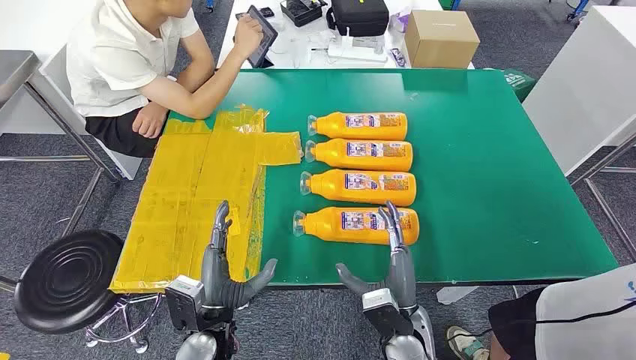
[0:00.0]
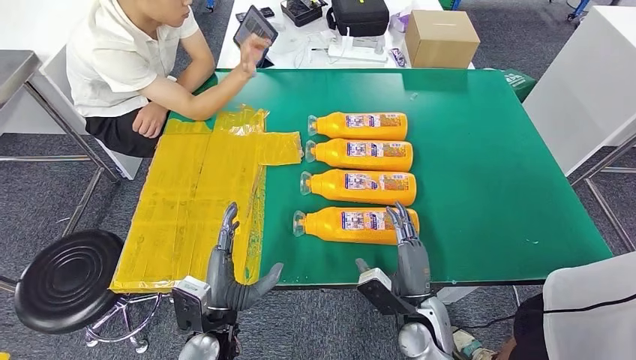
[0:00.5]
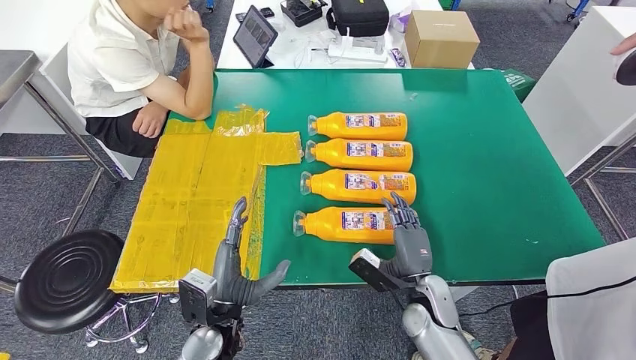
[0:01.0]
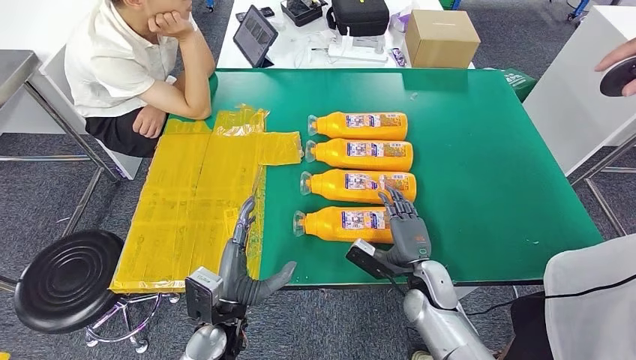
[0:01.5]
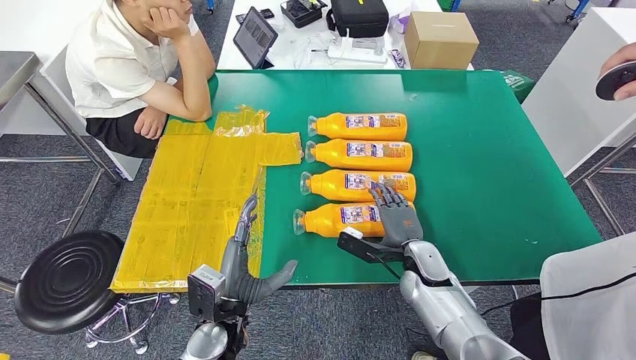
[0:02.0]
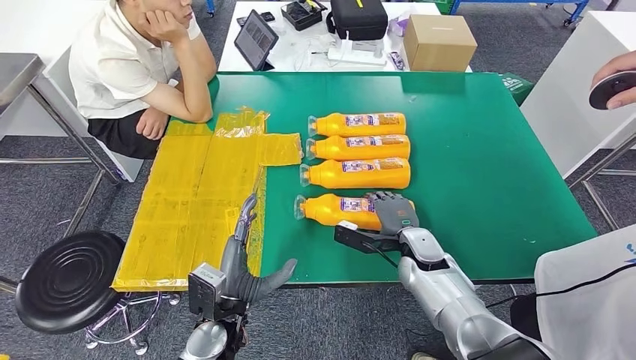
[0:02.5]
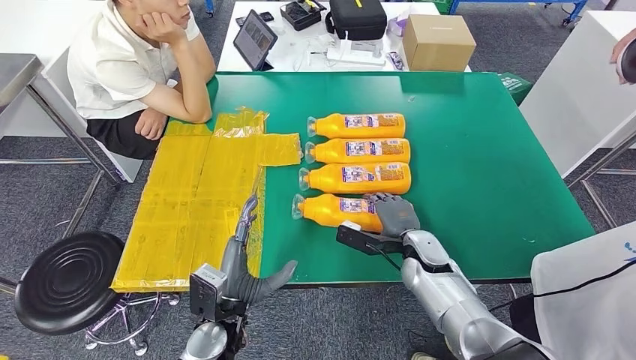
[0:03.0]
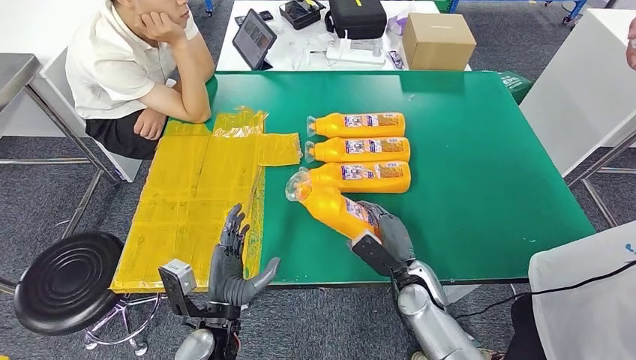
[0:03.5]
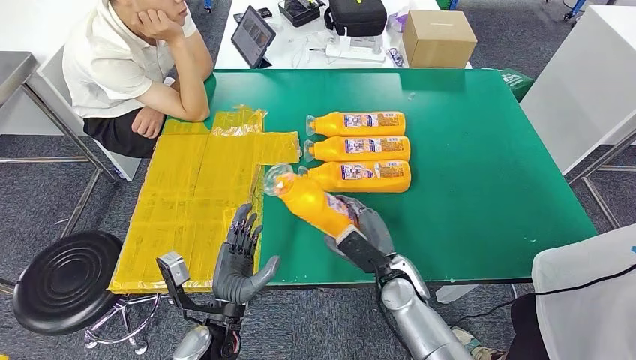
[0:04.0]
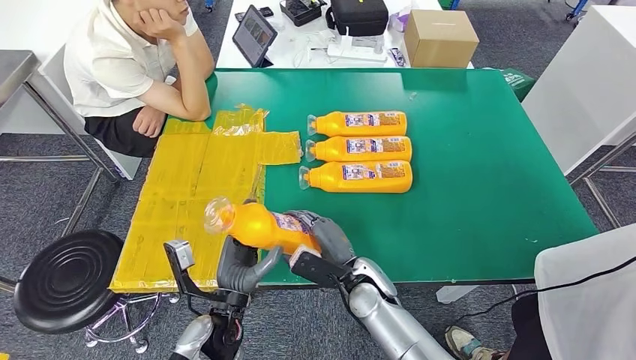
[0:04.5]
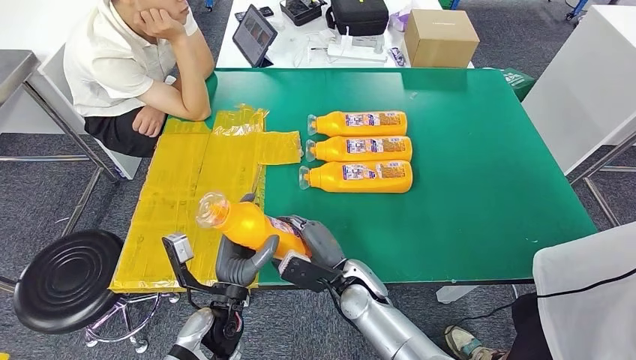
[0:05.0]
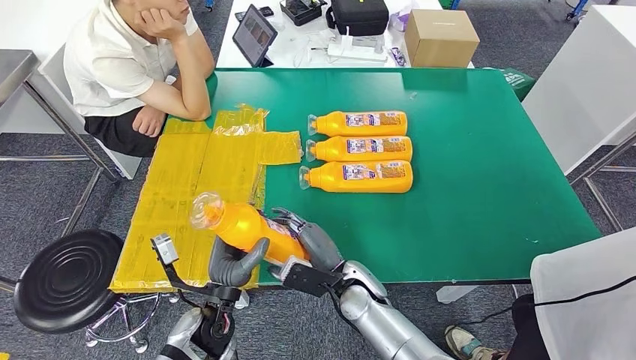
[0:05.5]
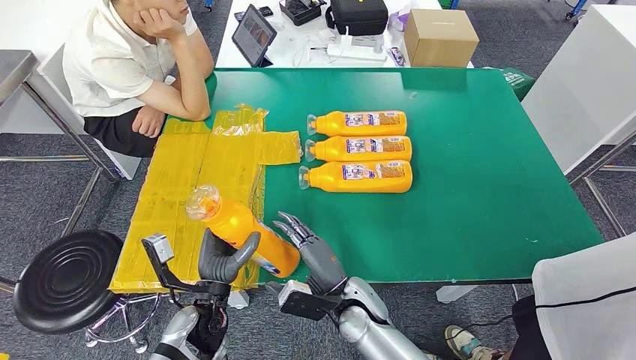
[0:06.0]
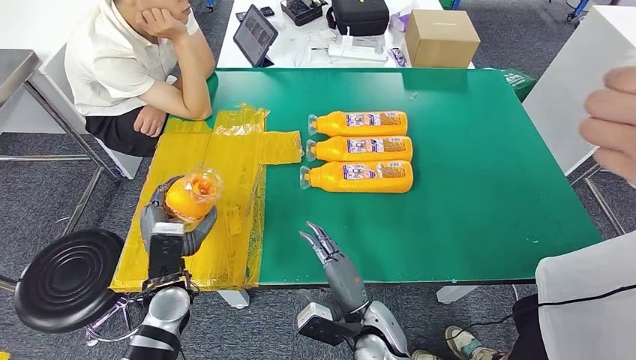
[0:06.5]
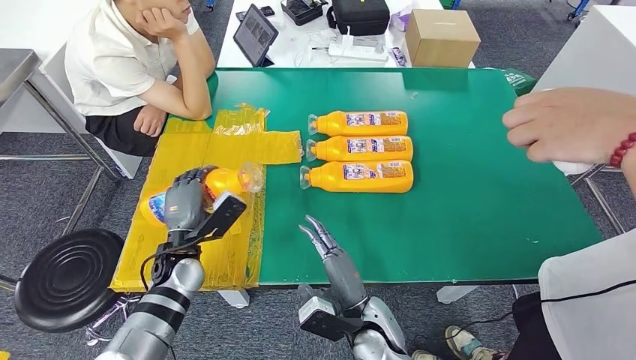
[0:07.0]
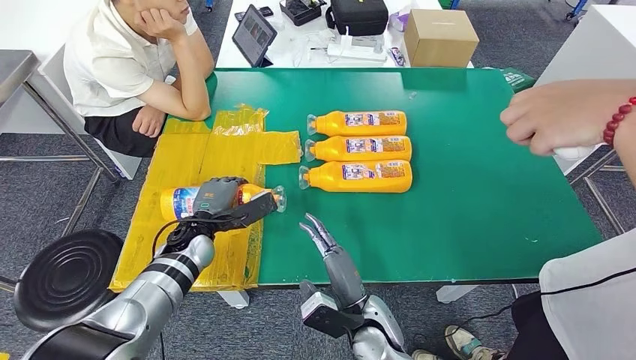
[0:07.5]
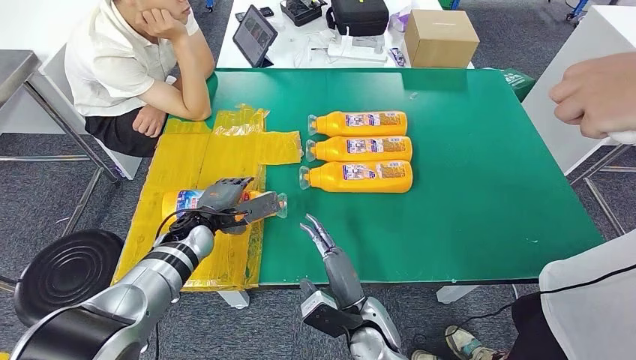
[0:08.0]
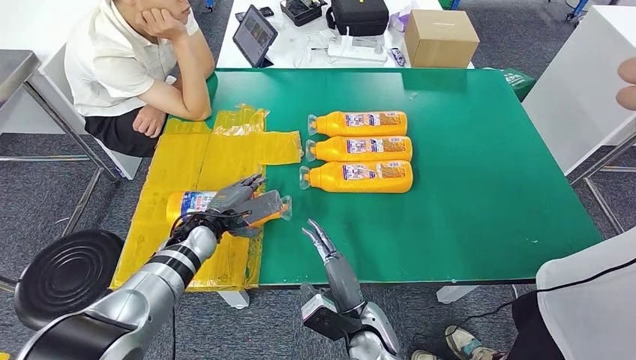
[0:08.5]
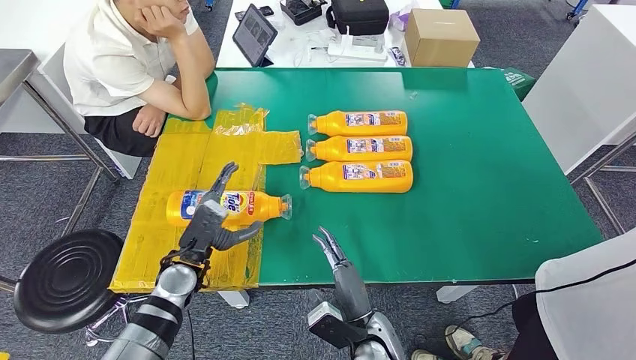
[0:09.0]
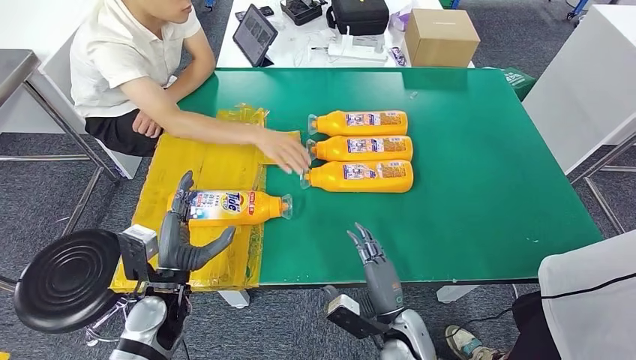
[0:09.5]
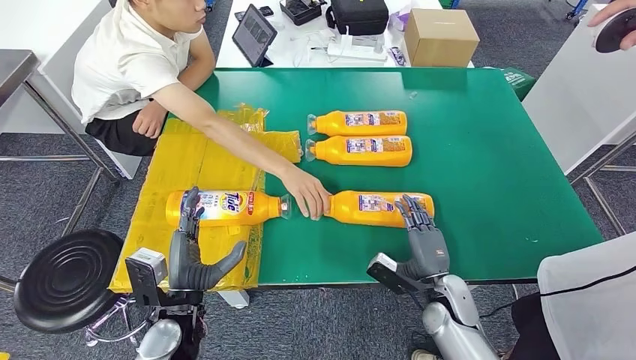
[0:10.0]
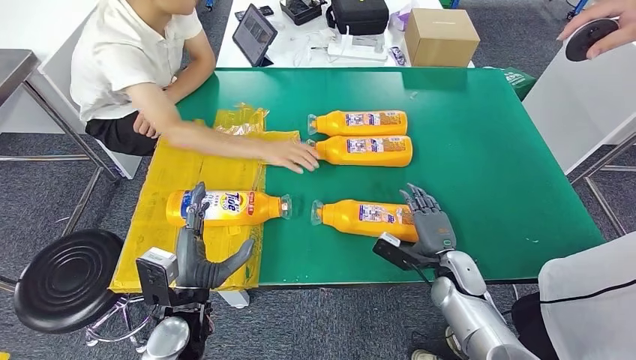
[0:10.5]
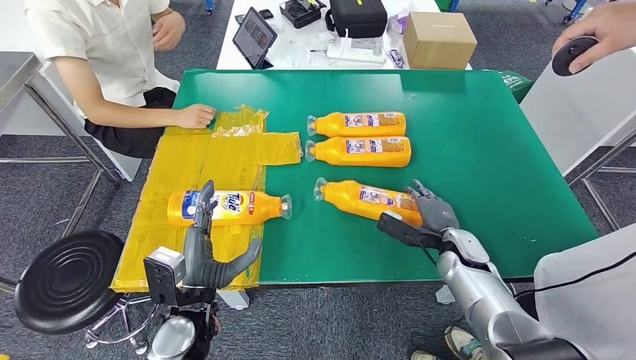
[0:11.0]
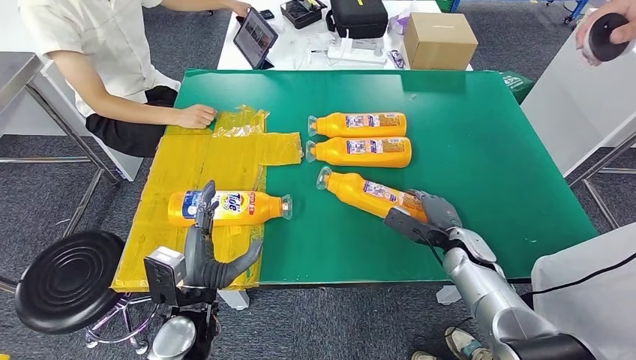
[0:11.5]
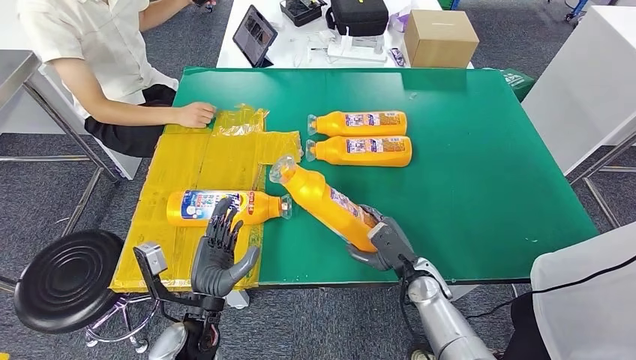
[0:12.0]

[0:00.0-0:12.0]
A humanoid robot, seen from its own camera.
Step, 0:00.0 to 0:04.0: Take the fast-moving consumer goods bottle from the table.
Step, 0:04.5 to 0:10.0: Flip the fast-moving consumer goods bottle to the front side.
0:02.0 to 0:04.0: The right hand moves to the left, some 5 cm.
0:04.0 to 0:06.0: The right hand shifts roughly 10 cm to the left.
0:06.0 to 0:08.0: The left hand shifts roughly 15 cm forward.

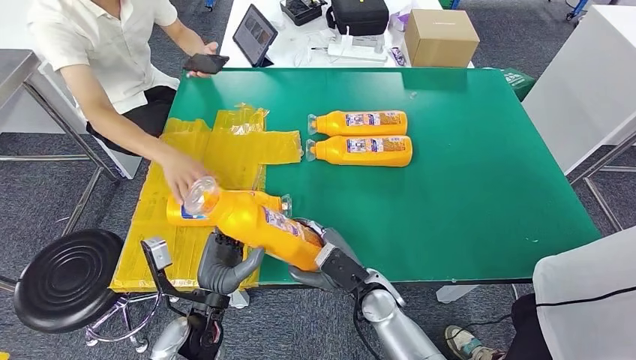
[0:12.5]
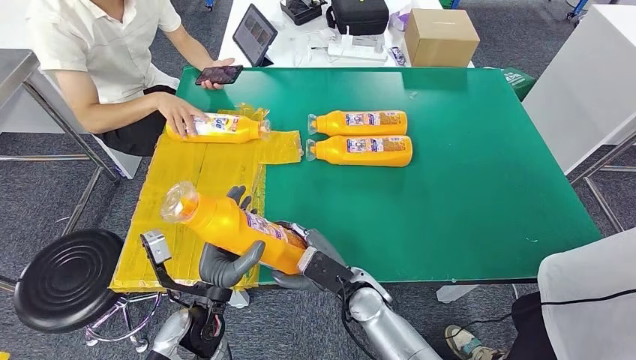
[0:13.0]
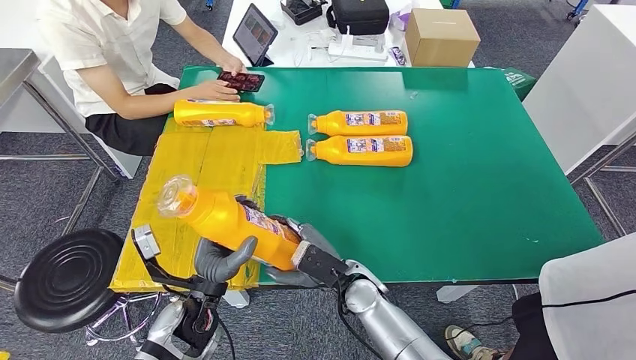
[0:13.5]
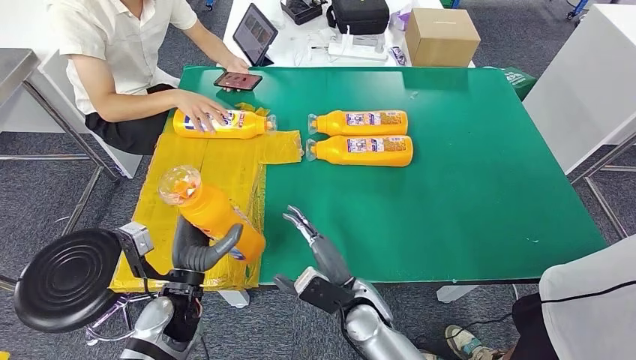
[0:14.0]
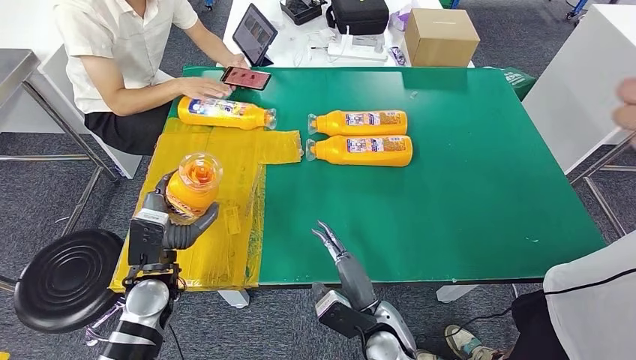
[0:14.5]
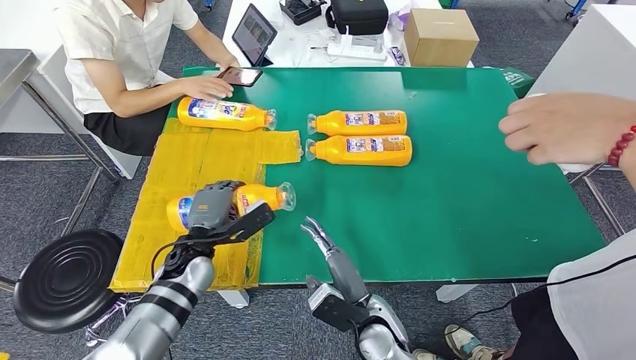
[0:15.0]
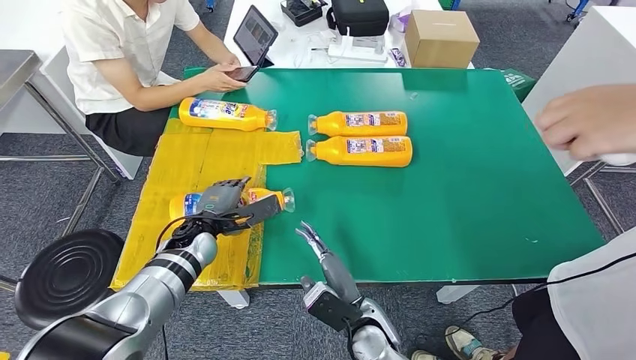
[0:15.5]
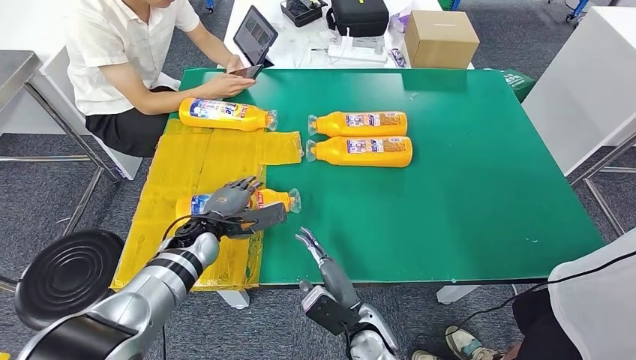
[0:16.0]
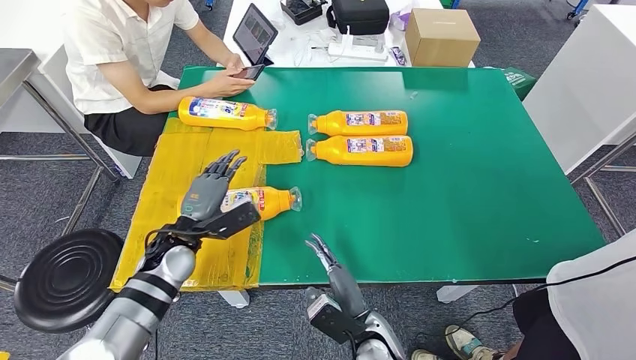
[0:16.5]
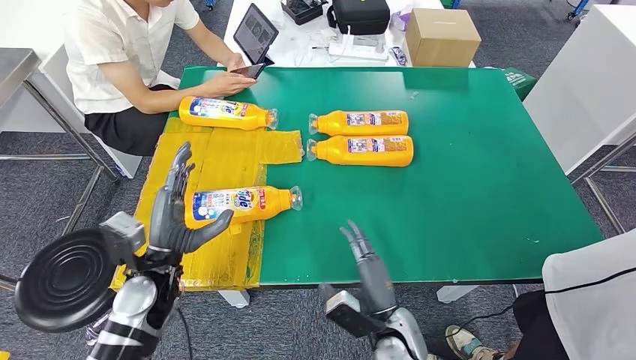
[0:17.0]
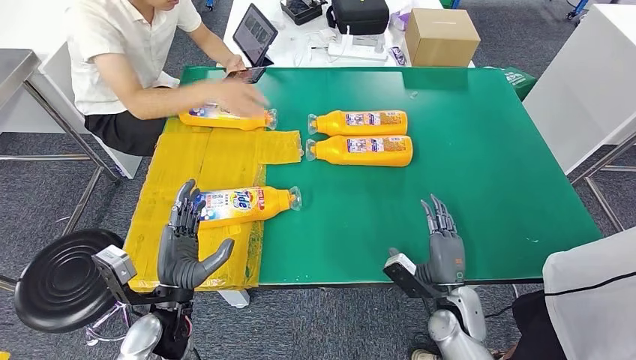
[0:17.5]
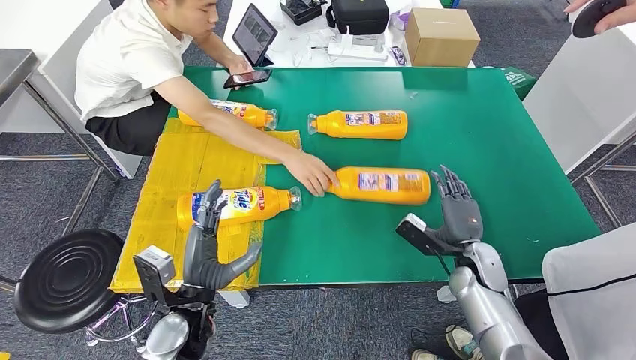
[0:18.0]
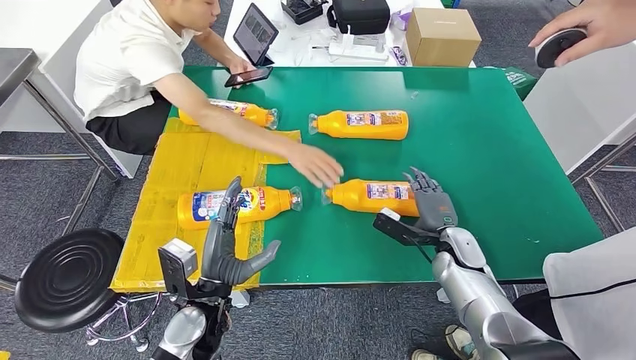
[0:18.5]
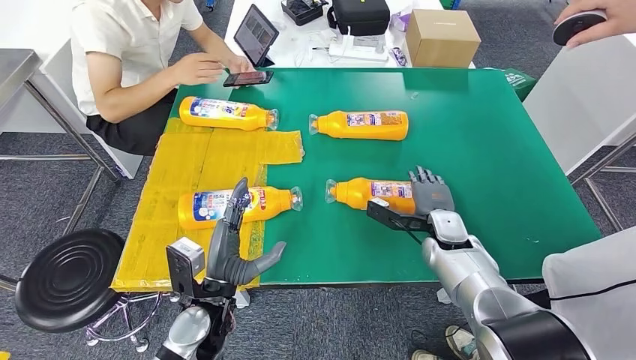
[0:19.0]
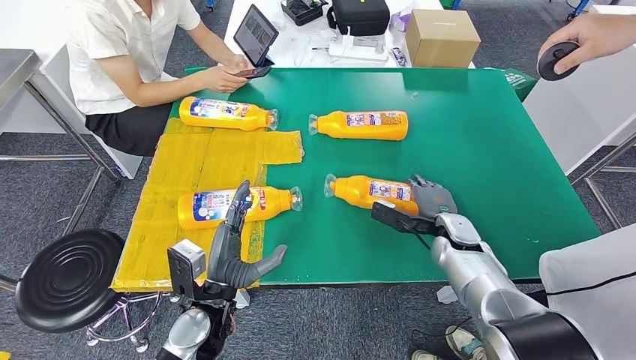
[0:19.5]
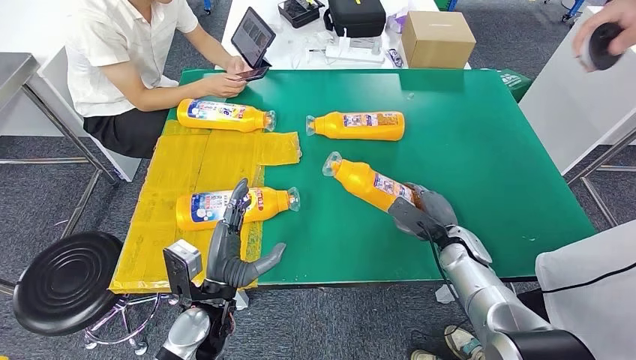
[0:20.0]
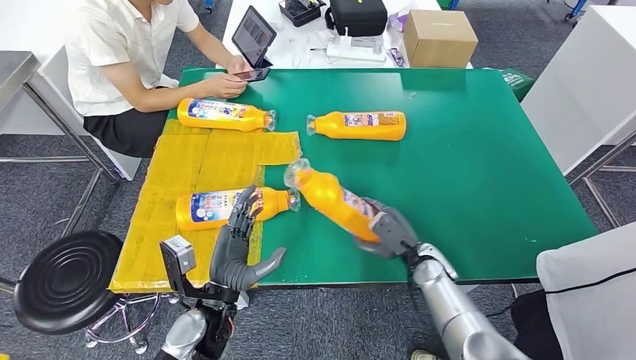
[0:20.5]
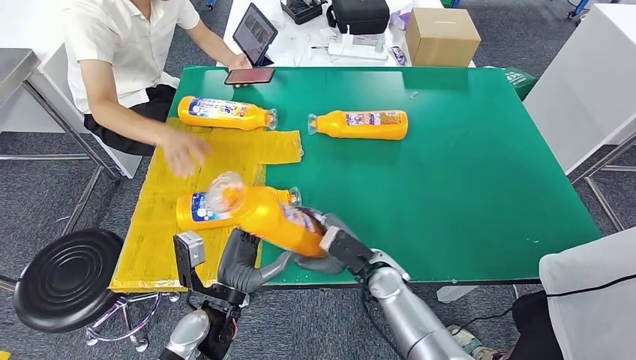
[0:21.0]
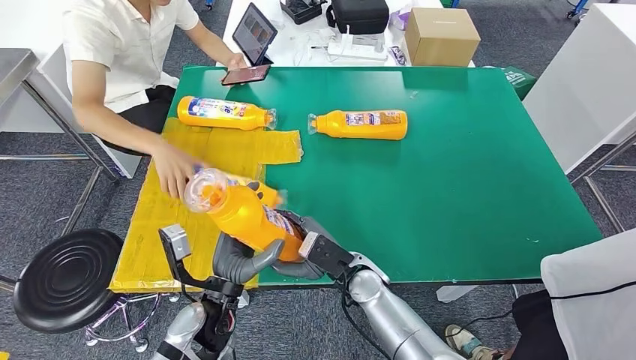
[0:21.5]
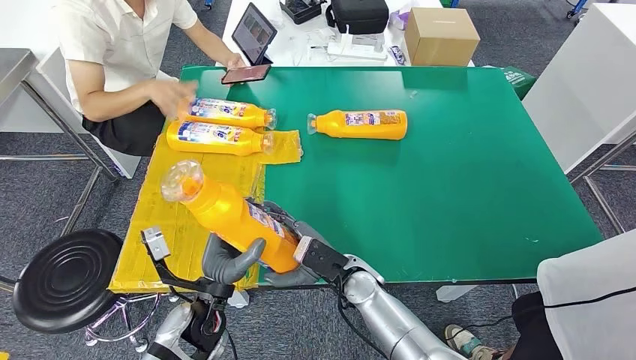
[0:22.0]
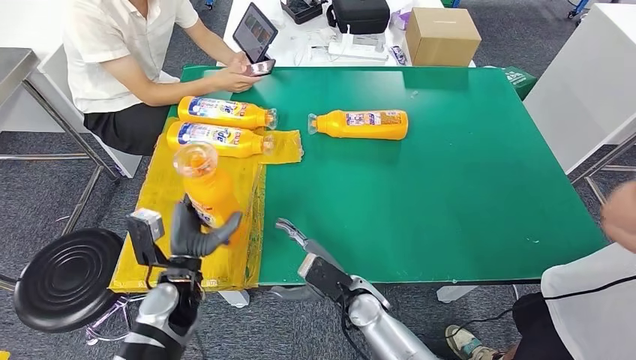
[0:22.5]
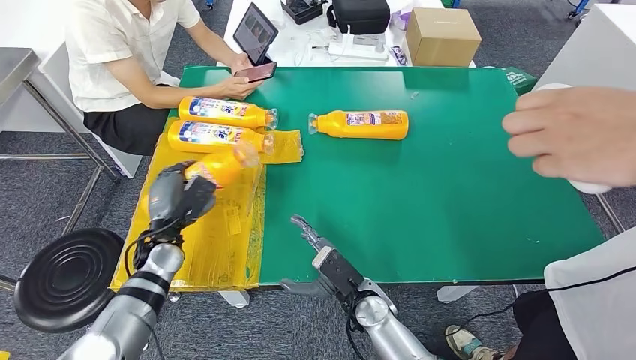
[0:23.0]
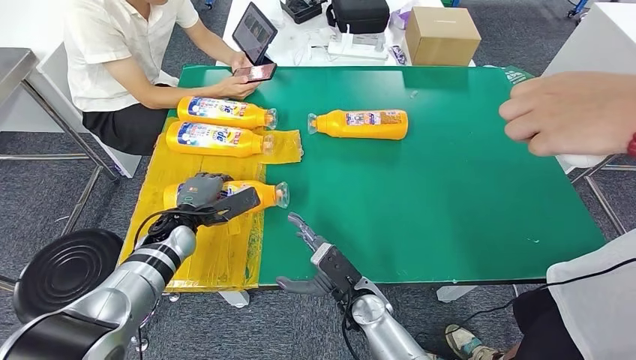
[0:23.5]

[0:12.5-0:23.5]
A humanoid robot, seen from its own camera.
Step, 0:13.0 to 0:16.5: Flip the fast-moving consumer goods bottle to the front side.
Step, 0:17.0 to 0:20.5: Pick up the fast-moving consumer goods bottle from the table.
0:14.5 to 0:16.0: The left hand is displaced forward by about 10 cm.
